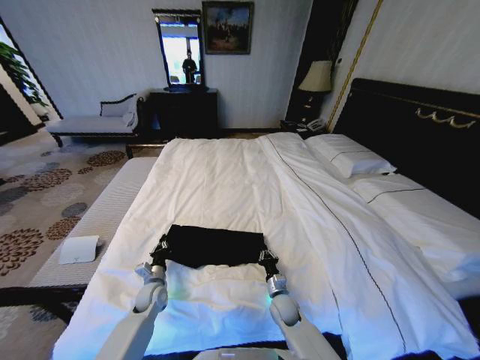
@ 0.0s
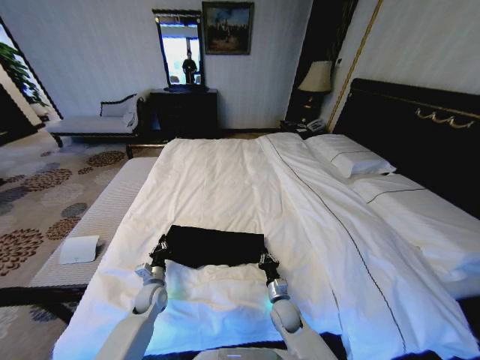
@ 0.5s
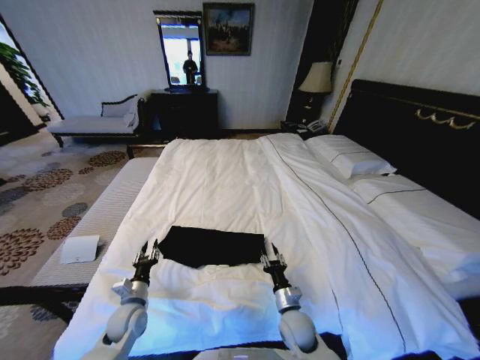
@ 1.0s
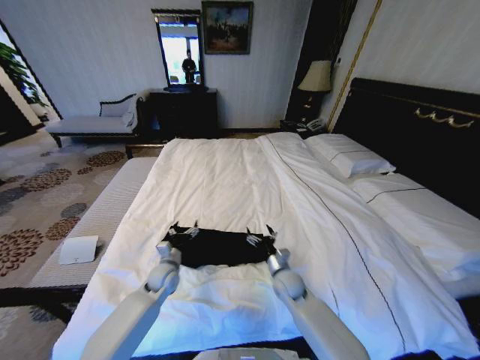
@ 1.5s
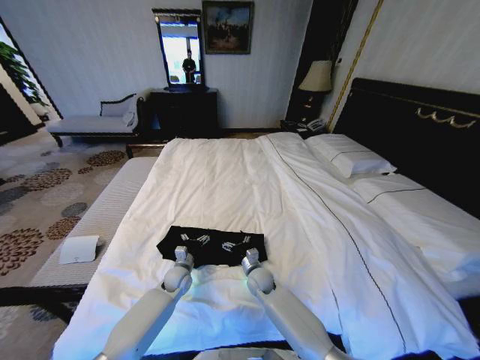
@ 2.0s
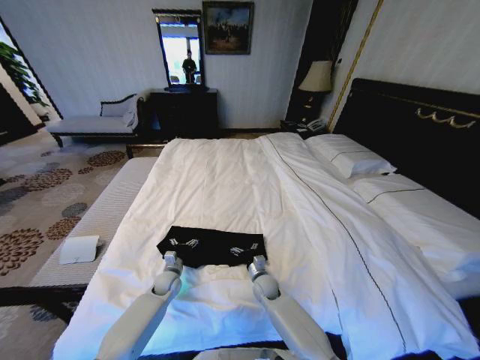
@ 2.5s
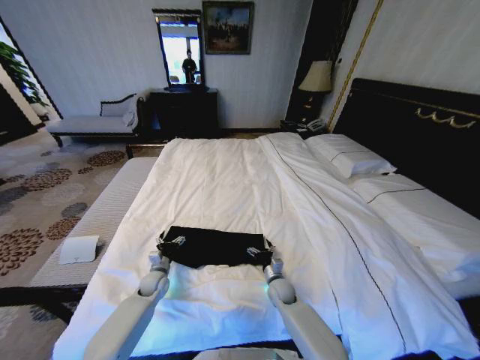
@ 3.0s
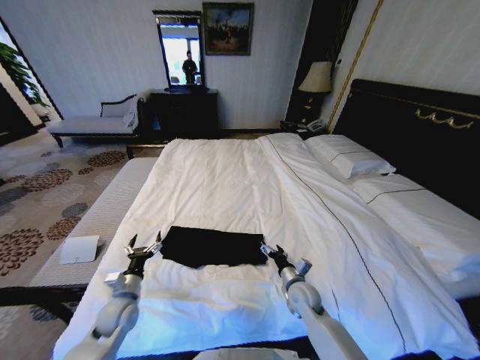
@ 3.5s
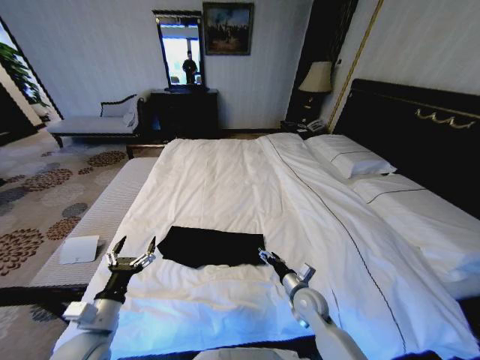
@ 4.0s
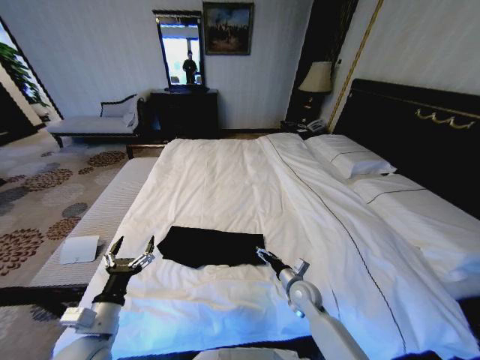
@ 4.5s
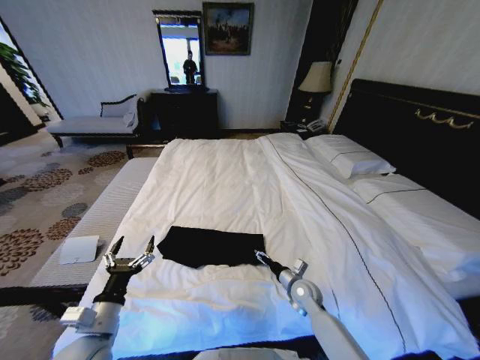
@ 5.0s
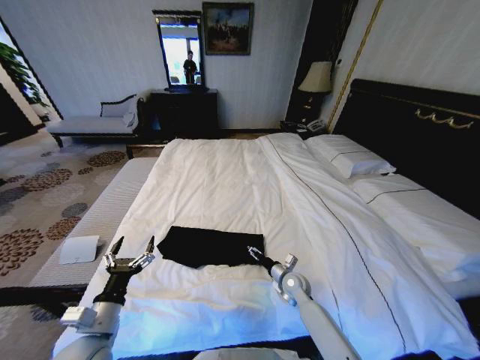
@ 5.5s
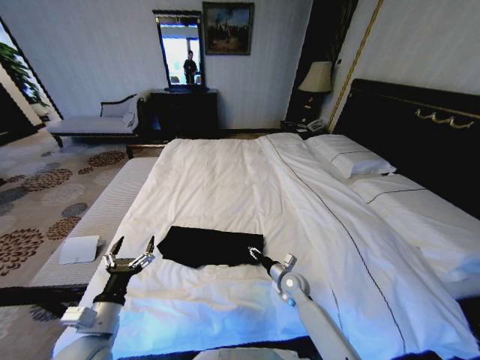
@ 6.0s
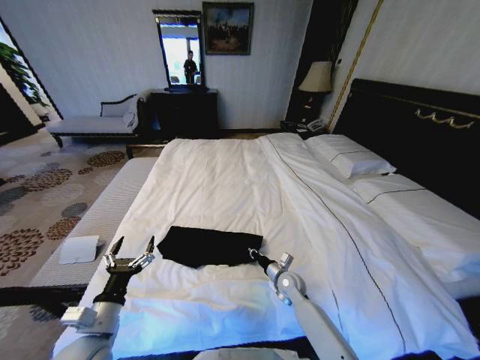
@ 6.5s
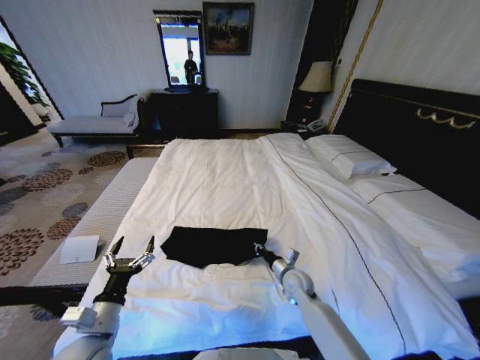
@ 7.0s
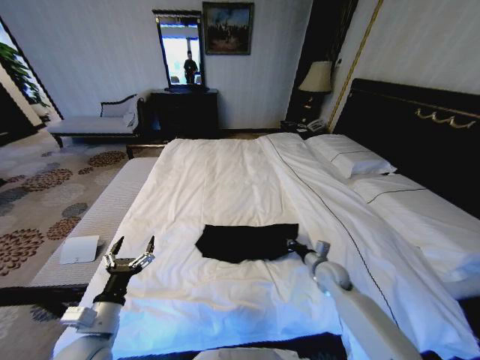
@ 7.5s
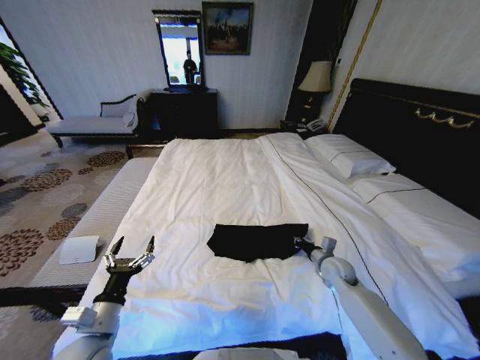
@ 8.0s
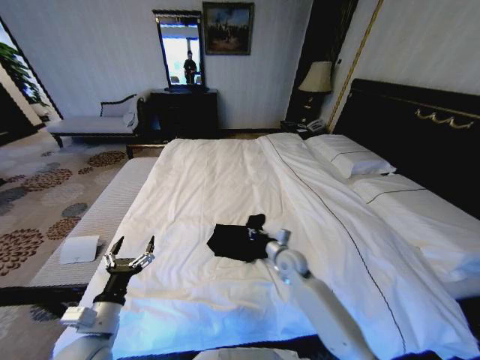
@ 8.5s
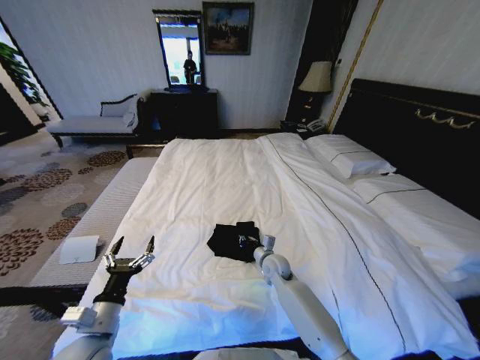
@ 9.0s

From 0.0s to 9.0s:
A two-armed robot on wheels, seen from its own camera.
Task of the whole recording: Fold the clothes on the bed.
From 0.0s to 2.0s: The right gripper goes roughly 10 cm forward and to the left, and opens up; the left gripper moves to the right and forward, about 10 cm, and opens up.
From 2.0s to 4.5s: The right gripper travels to the right and backward by roughly 15 cm. Meanwhile the left gripper shifts about 30 cm backward, upward and to the left.
From 4.5s to 7.0s: The right gripper closes its fingers.
From 7.0s to 9.0s: The right gripper is displaced forward by approximately 5 cm, and travels to the right and back again, approximately 15 cm each way.

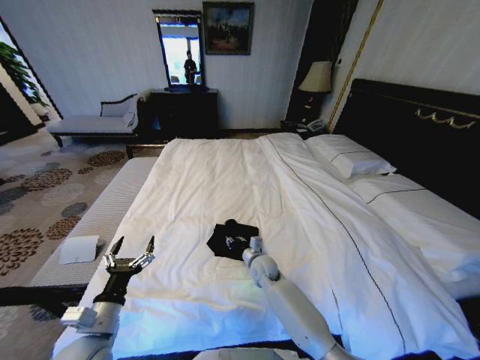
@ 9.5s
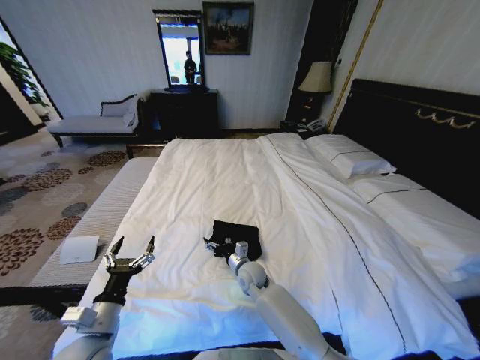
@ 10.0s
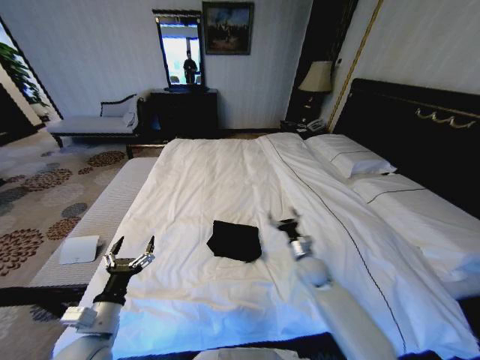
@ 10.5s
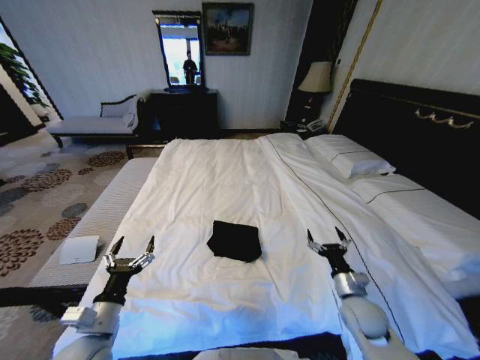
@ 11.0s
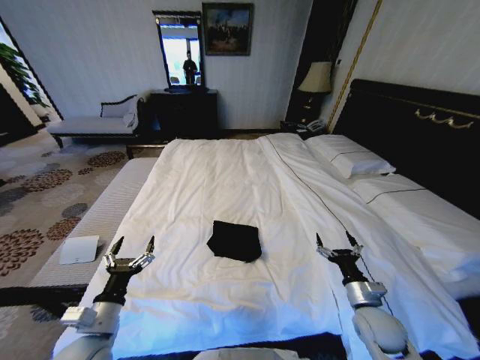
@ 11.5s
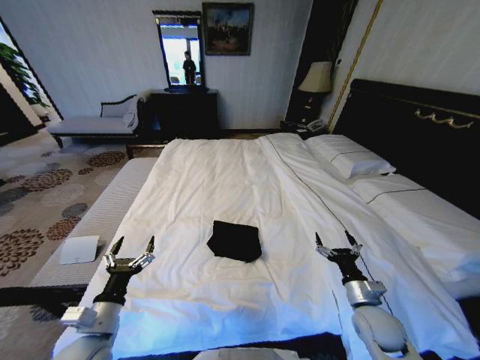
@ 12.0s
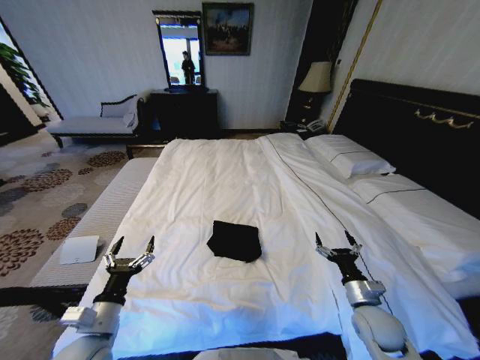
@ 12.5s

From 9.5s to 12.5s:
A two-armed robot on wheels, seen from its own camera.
Task of the whole recording: Fold the clothes on the bed.
From 9.5s to 11.0s: The right gripper goes roughly 30 cm to the right and backward, and opens.
From 11.0s to 12.5s: The grippers make only small movements.
